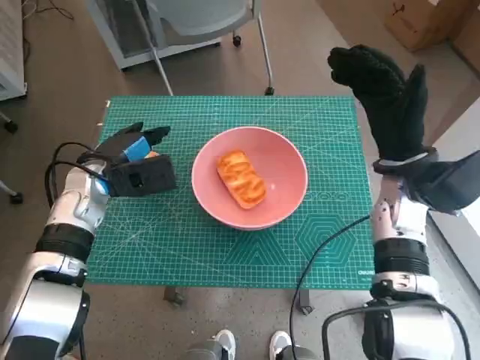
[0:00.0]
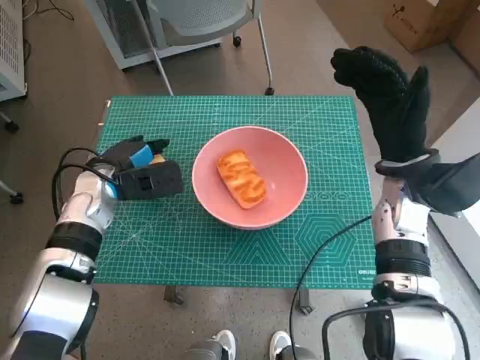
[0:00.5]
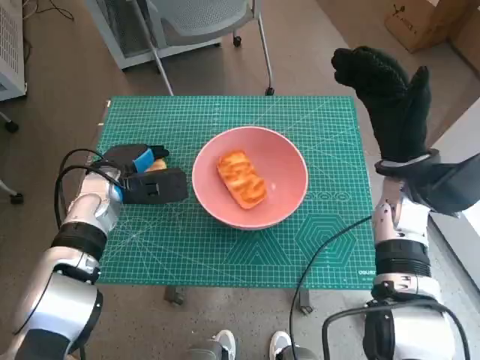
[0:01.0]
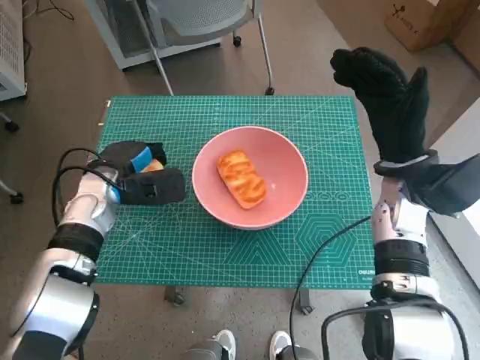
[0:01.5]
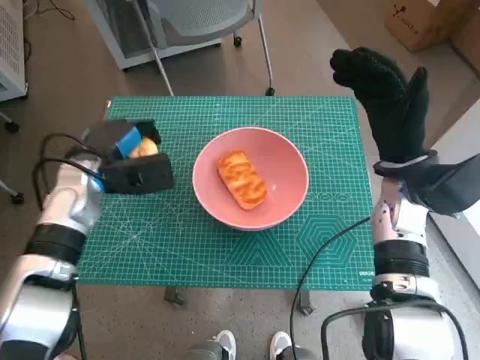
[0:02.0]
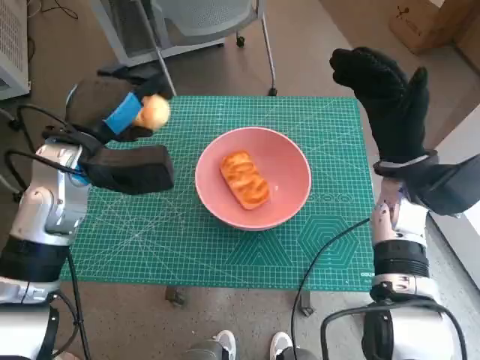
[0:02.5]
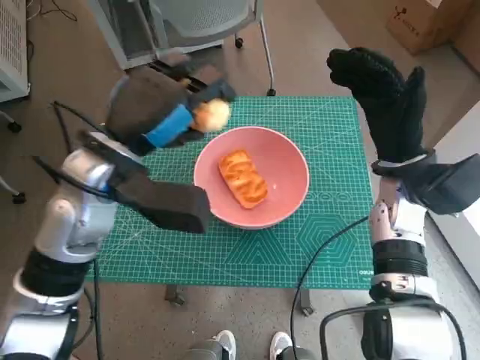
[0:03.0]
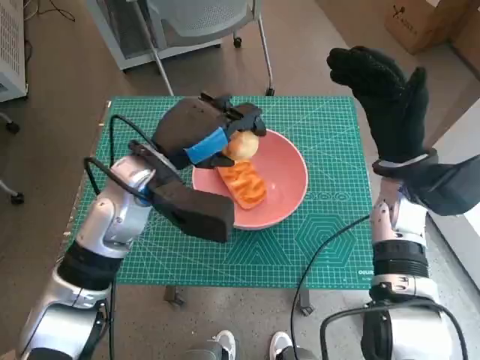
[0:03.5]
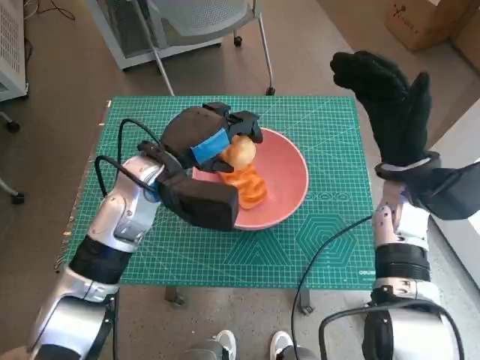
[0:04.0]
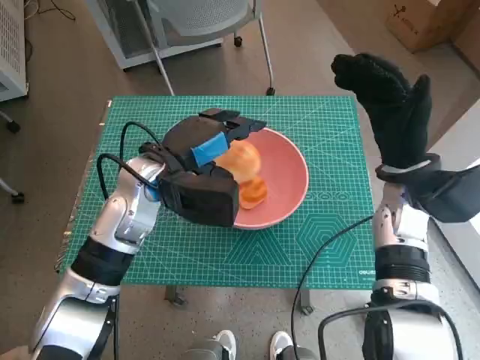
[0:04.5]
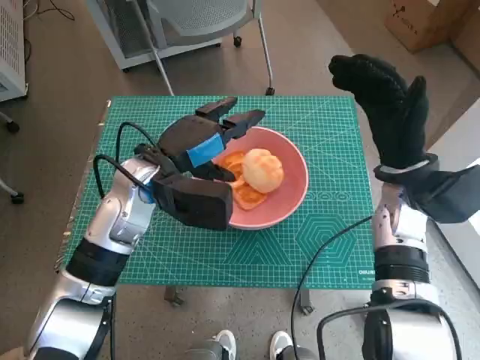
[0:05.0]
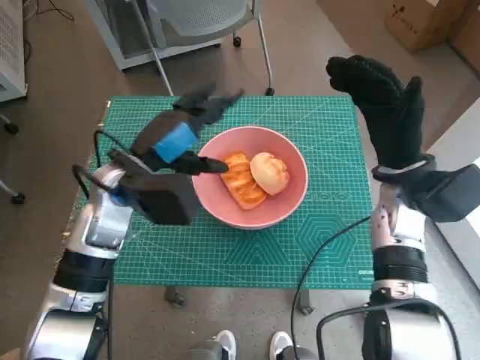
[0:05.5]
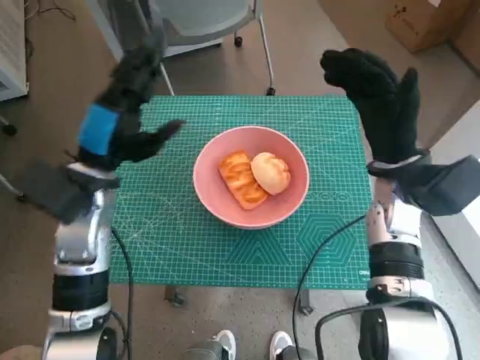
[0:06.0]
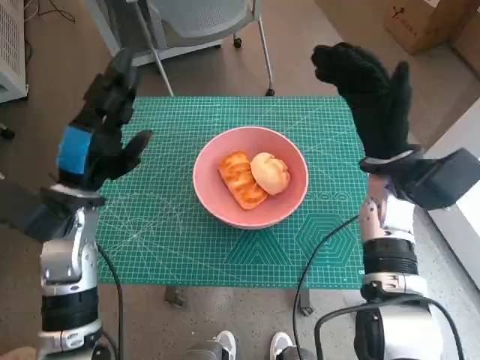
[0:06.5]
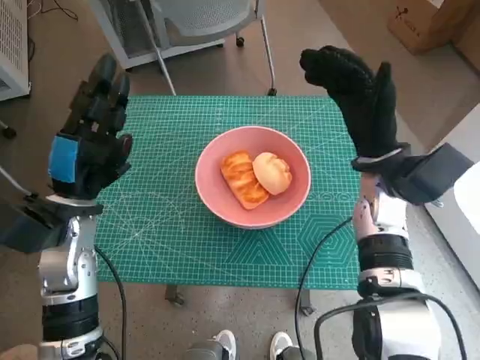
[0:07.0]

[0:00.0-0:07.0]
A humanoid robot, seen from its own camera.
Step, 0:01.5 to 0:04.5: Place the round bread in pink bowl with left hand.
0:00.0 to 0:02.0: The hands move only a little.
0:02.0 to 0:03.5: The left hand moves to the right and upward, roughly 10 cm.
0:03.5 to 0:05.0: The hands make only small movements.
0:05.0 to 0:07.0: The left hand travels to the left and backward by about 10 cm.

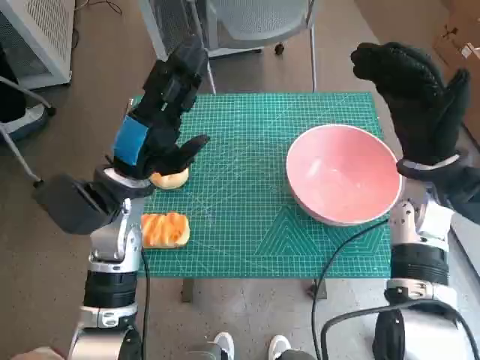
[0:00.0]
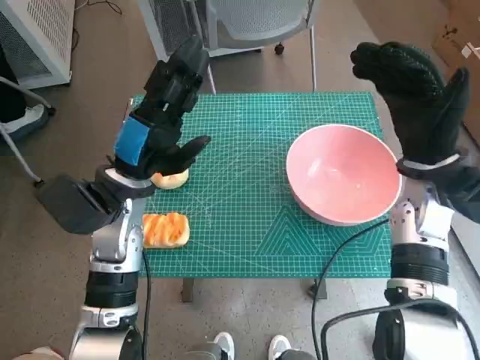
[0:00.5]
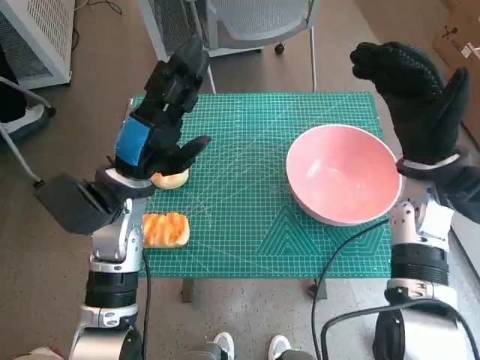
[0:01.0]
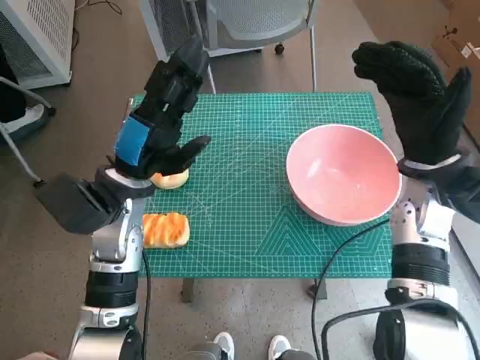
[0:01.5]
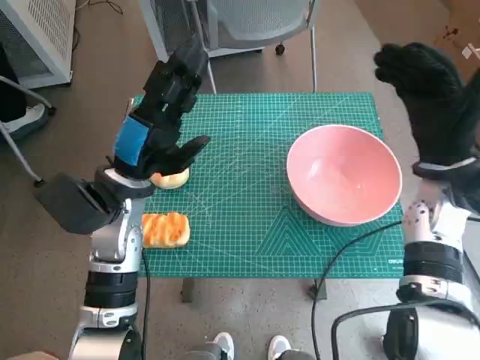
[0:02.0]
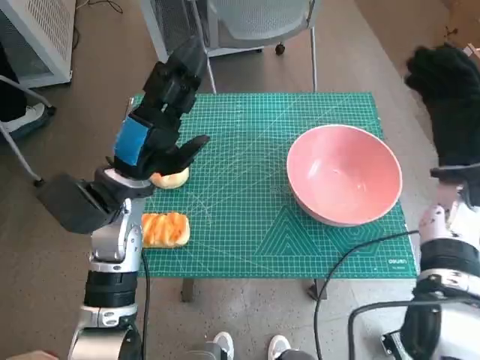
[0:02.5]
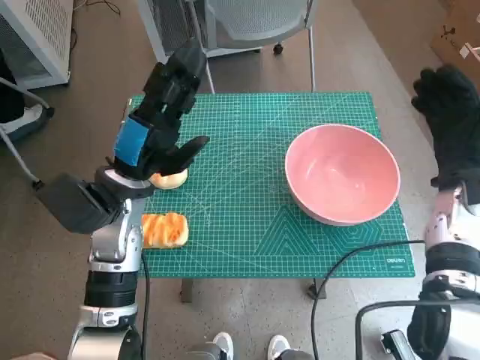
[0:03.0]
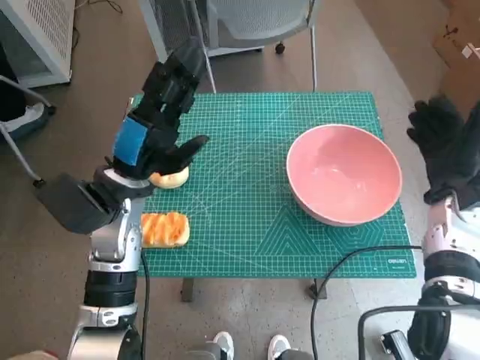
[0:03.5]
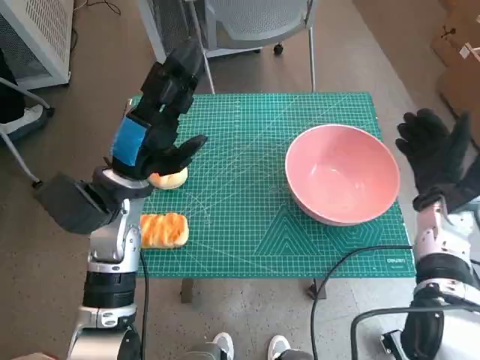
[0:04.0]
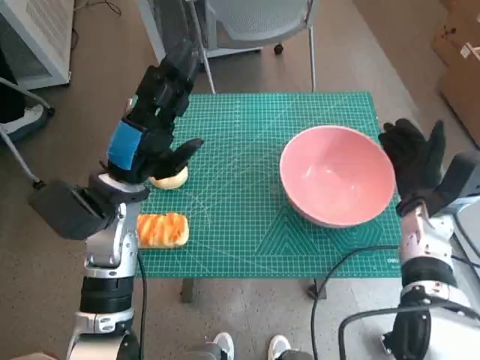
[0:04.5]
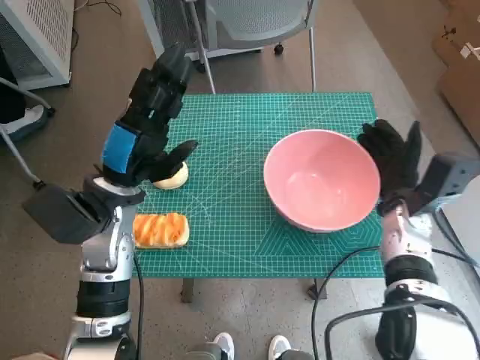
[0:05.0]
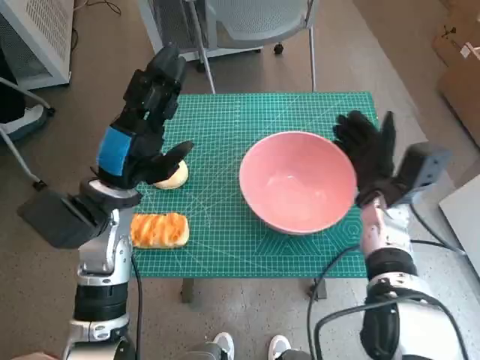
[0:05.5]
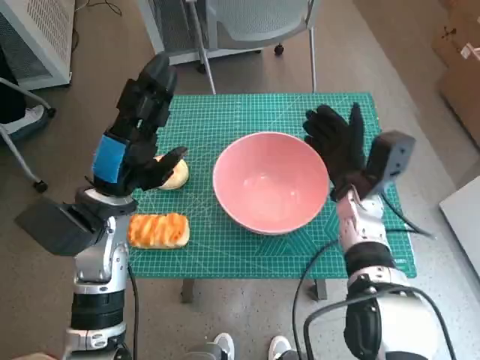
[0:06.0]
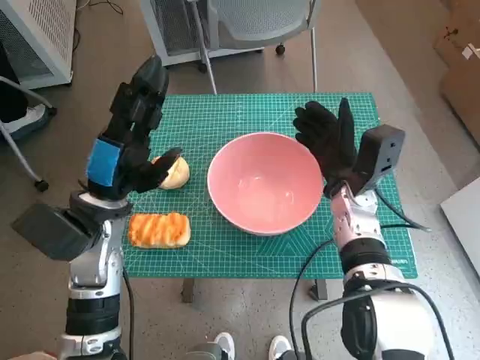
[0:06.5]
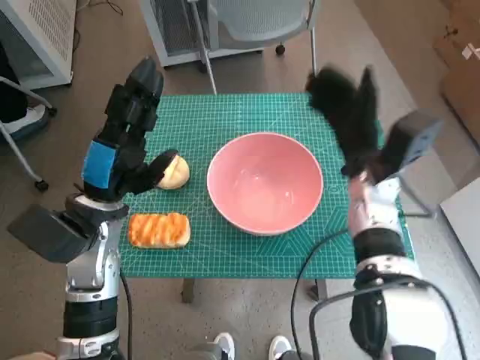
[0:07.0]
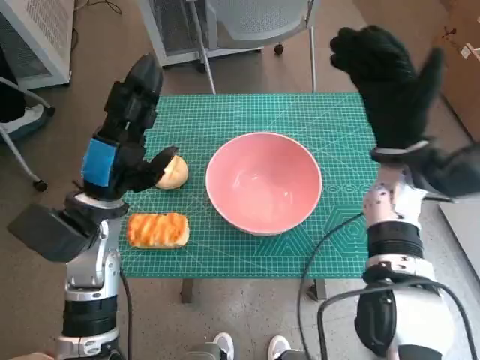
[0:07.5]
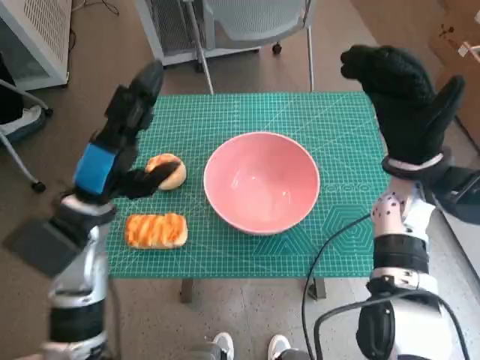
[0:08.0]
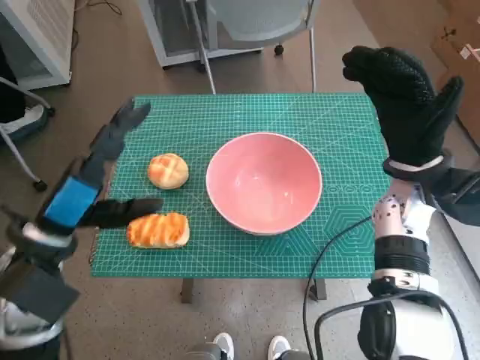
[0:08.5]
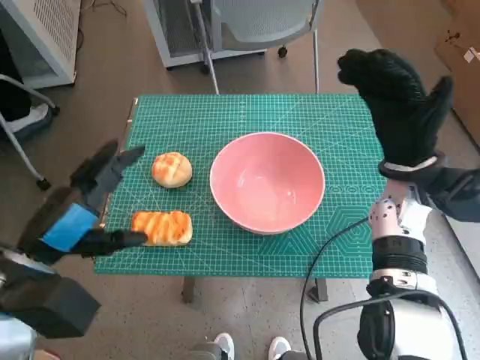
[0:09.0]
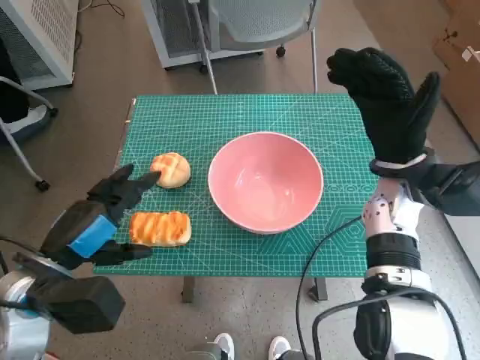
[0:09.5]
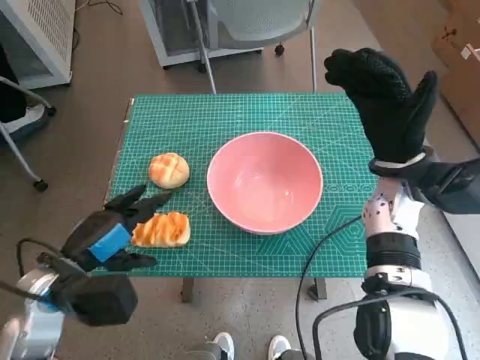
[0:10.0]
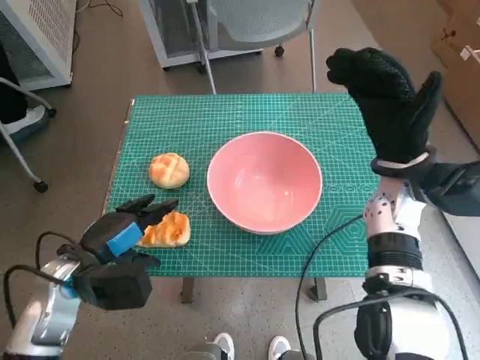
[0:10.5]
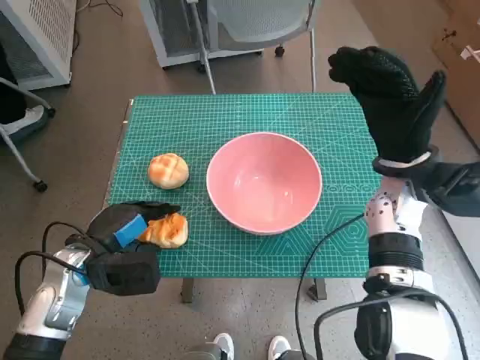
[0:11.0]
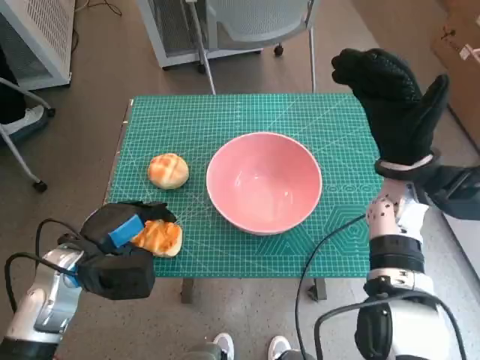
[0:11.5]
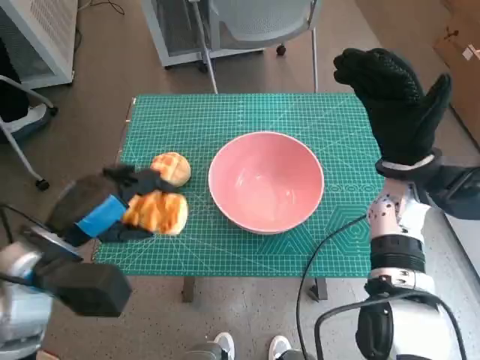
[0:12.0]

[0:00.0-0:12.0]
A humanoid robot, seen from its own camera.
Step, 0:00.0 to 0:06.5: Move the pink bowl to the center of table with right hand.
Step, 0:07.0 to 0:11.0: Grasp the long bread with left hand.
0:02.0 to 0:04.0: The right hand heads downward, covering about 5 cm.
0:04.0 to 0:06.0: The right hand heads to the left, covering approximately 10 cm.
0:06.0 to 0:08.0: The right hand goes approximately 10 cm upward.
0:08.0 to 0:10.0: The left hand shifts about 5 cm backward.
0:10.0 to 0:12.0: The hands stay close to where they were, moving slightly.

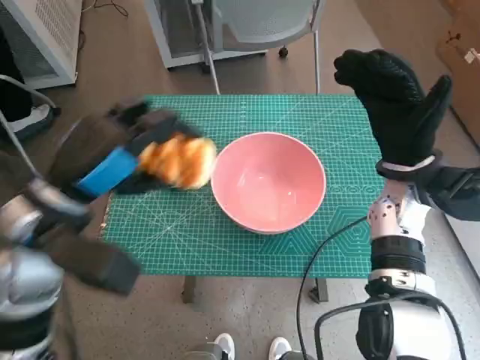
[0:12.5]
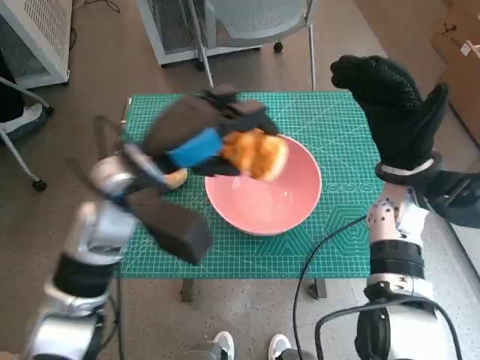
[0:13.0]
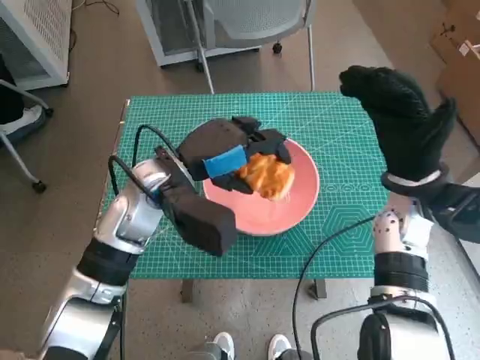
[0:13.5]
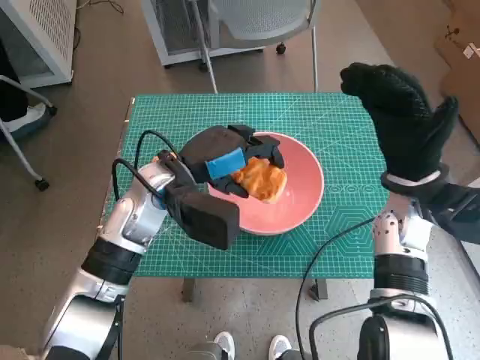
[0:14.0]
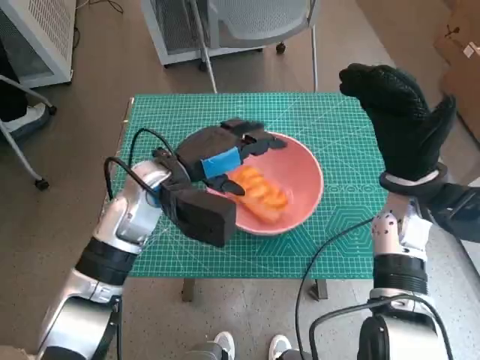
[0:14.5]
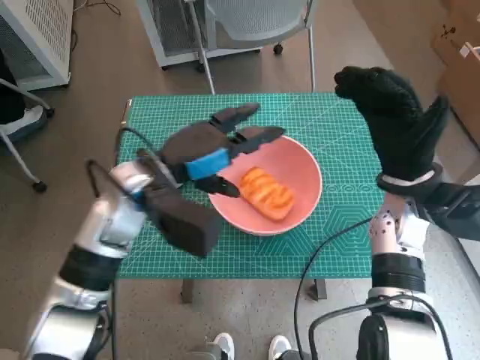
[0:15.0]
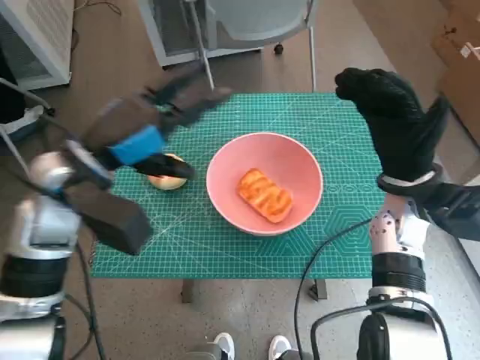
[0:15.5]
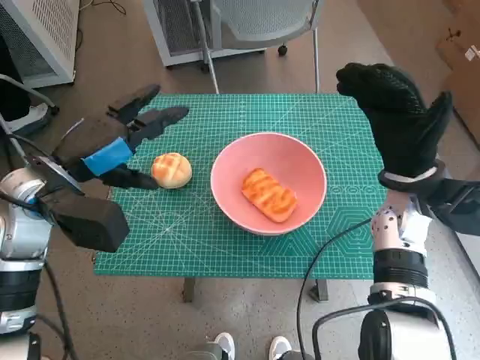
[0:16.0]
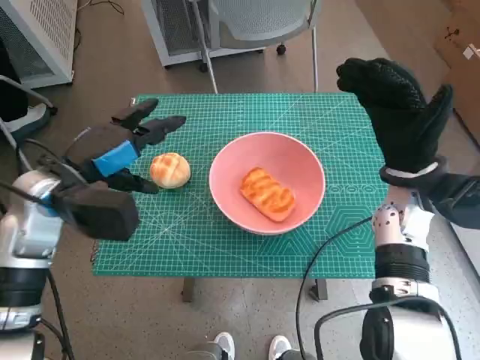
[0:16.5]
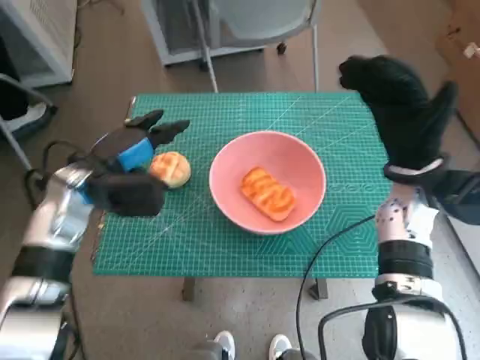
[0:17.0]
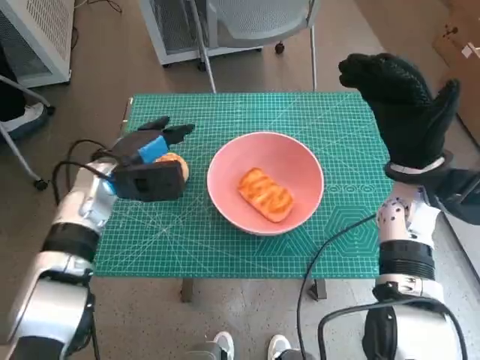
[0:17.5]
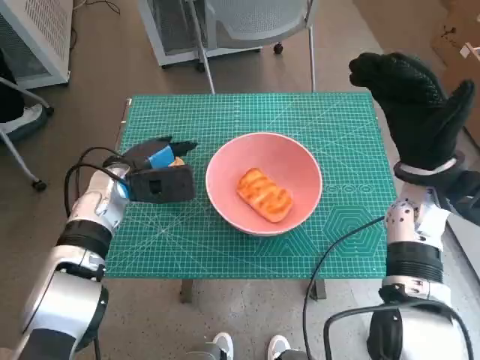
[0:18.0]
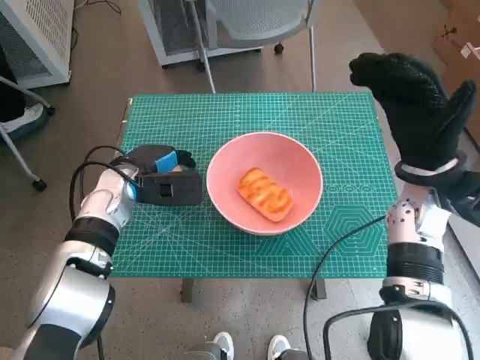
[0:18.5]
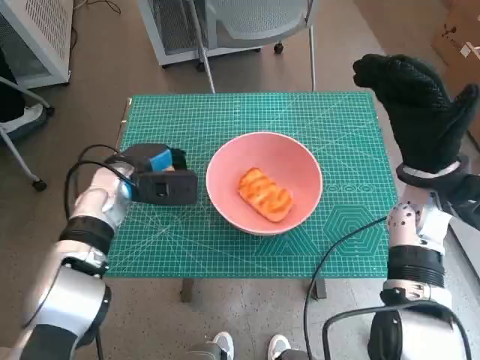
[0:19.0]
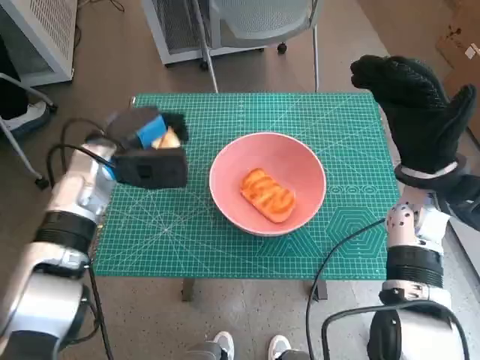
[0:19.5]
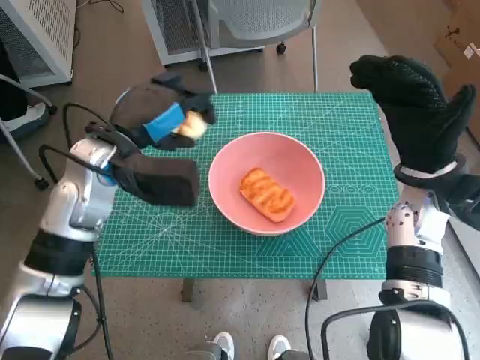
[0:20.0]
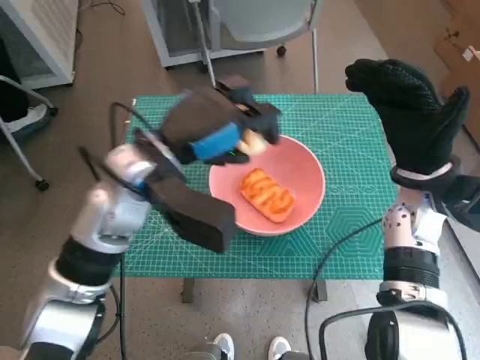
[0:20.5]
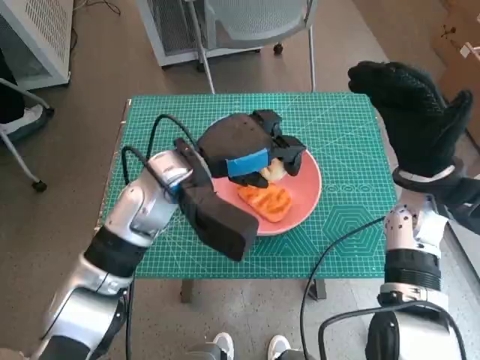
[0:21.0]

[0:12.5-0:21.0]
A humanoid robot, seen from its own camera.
Step, 0:12.5 to 0:14.5: Place the long bread in pink bowl with left hand.
Step, 0:15.0 to 0:18.5: Grasp the round bread with left hand.
0:12.5 to 0:14.5: The left hand moves forward, to the right and downward, some 15 cm.
0:14.5 to 0:16.5: The left hand moves to the left, some 10 cm.
0:16.5 to 0:19.0: The left hand moves downward and forward, about 10 cm.
0:19.0 to 0:21.0: The left hand moves to the right and upward, roughly 15 cm.
